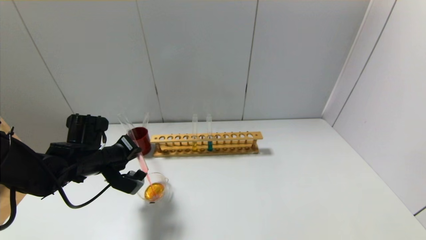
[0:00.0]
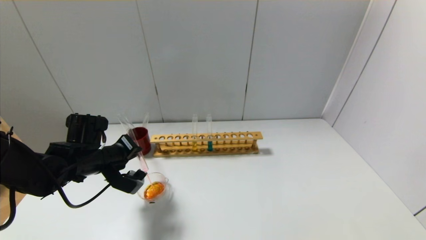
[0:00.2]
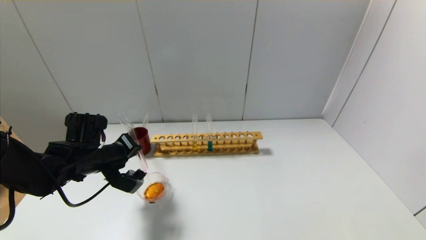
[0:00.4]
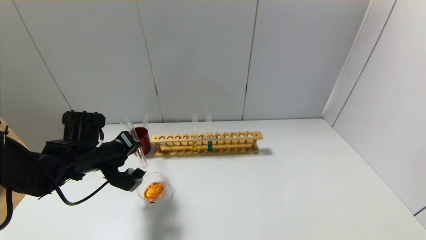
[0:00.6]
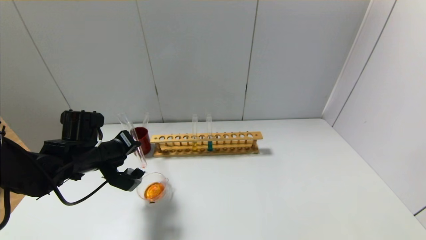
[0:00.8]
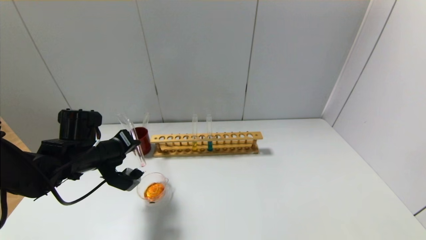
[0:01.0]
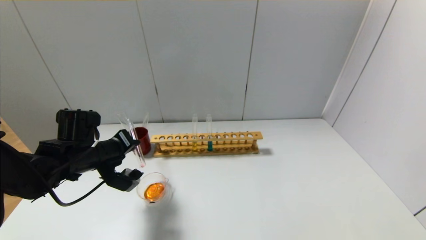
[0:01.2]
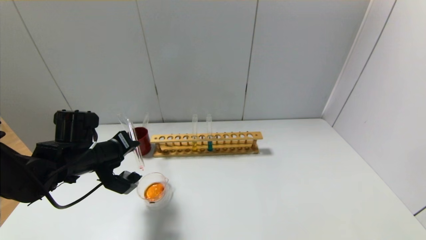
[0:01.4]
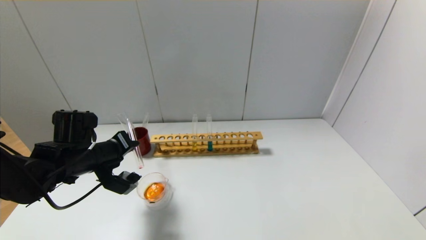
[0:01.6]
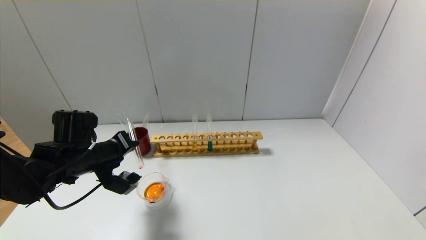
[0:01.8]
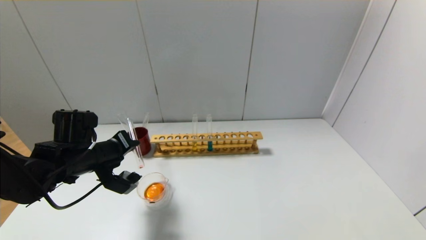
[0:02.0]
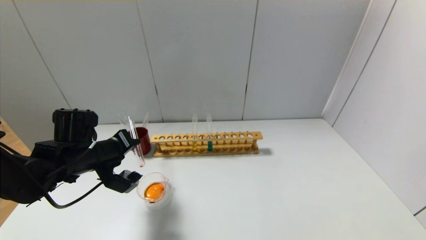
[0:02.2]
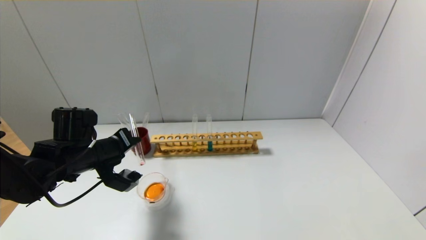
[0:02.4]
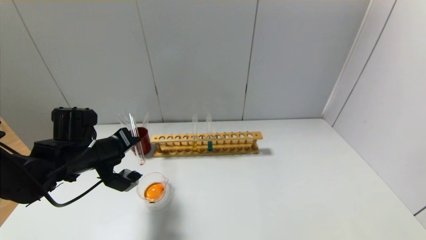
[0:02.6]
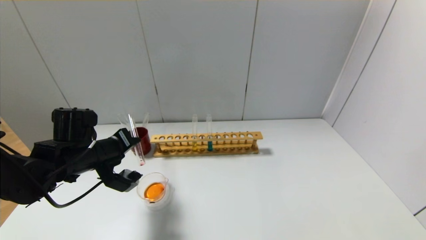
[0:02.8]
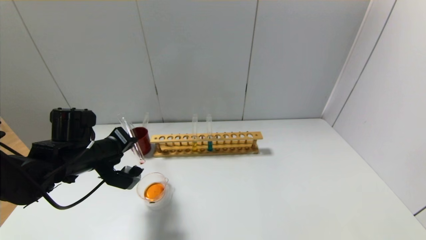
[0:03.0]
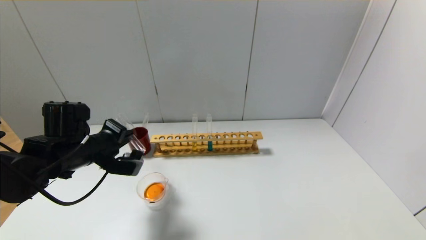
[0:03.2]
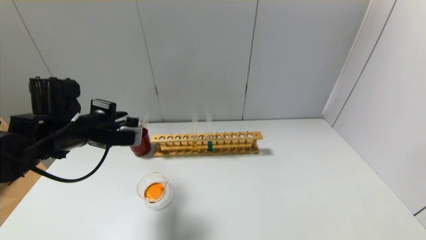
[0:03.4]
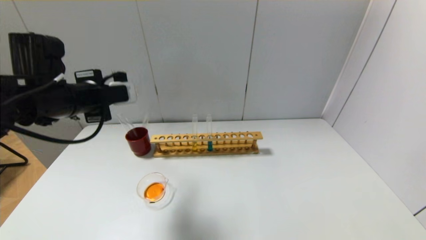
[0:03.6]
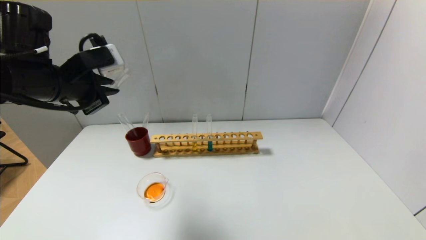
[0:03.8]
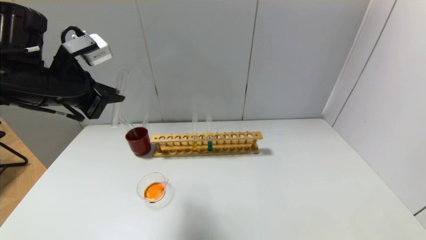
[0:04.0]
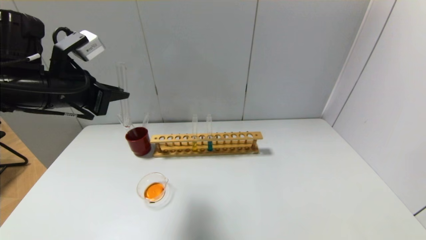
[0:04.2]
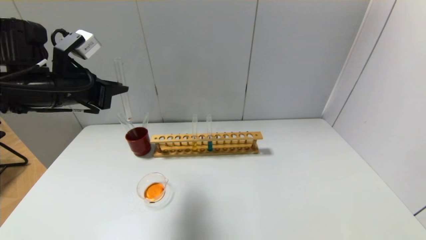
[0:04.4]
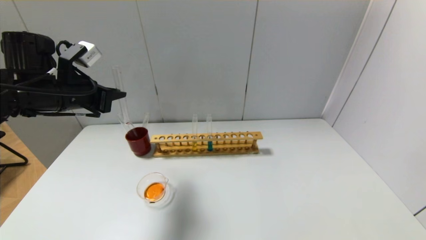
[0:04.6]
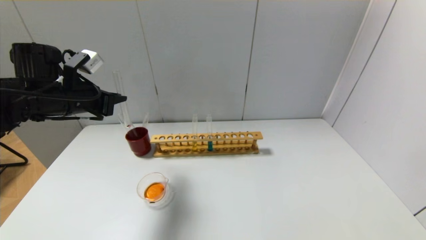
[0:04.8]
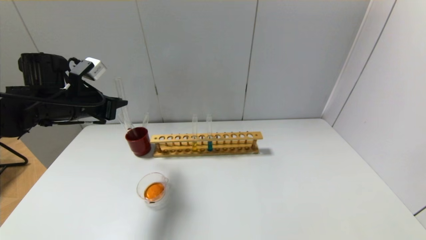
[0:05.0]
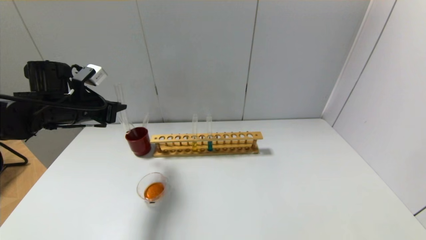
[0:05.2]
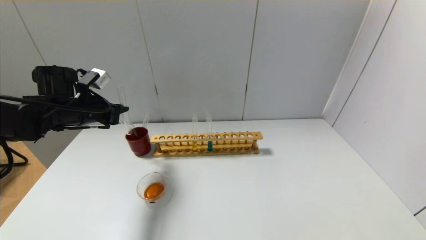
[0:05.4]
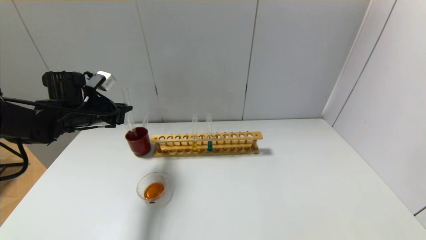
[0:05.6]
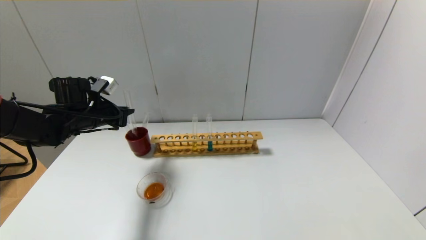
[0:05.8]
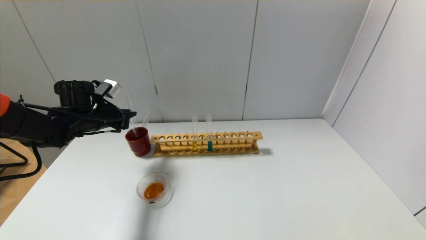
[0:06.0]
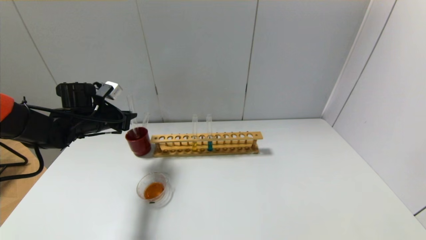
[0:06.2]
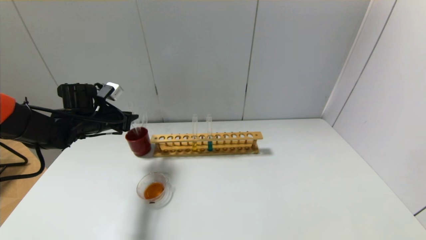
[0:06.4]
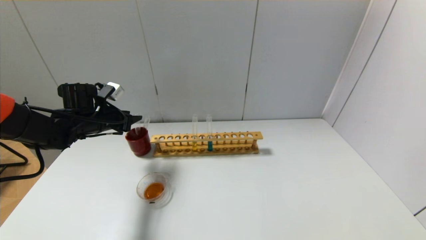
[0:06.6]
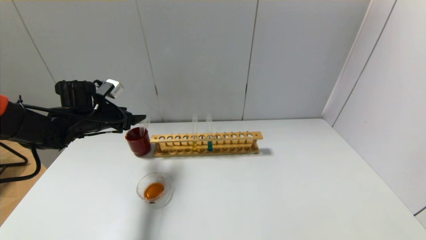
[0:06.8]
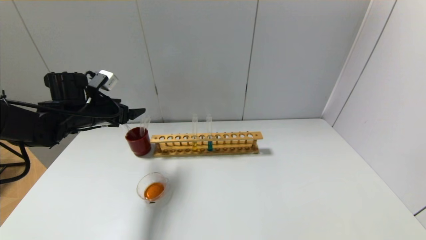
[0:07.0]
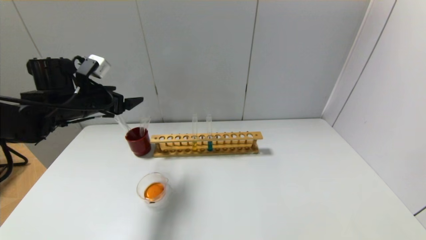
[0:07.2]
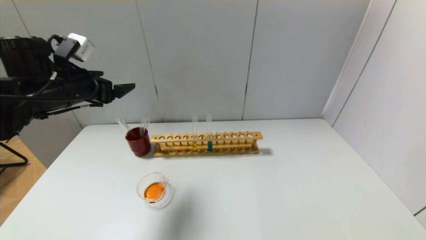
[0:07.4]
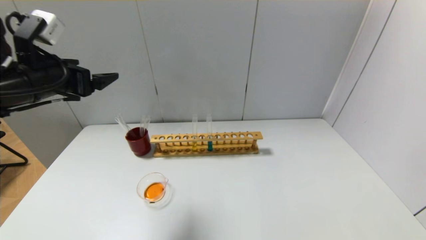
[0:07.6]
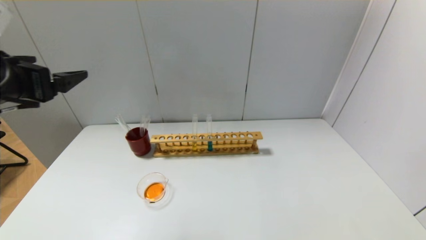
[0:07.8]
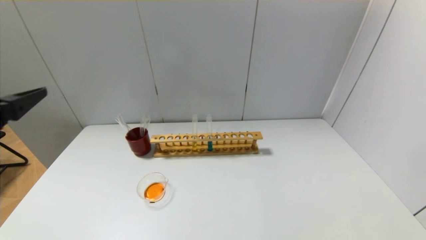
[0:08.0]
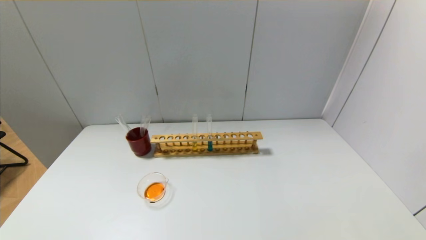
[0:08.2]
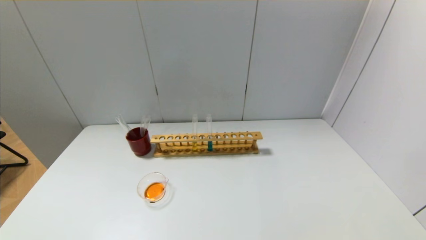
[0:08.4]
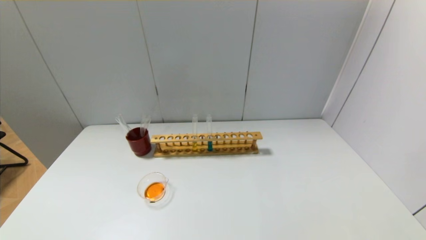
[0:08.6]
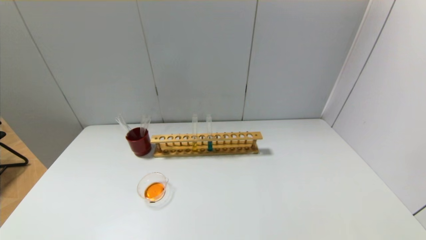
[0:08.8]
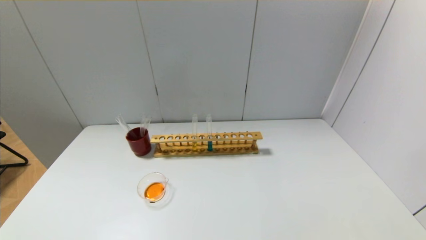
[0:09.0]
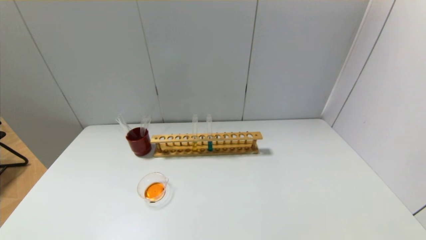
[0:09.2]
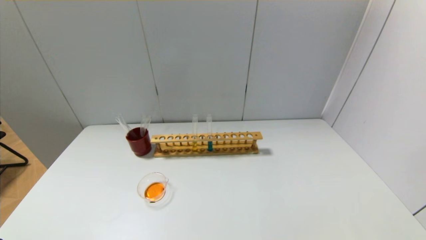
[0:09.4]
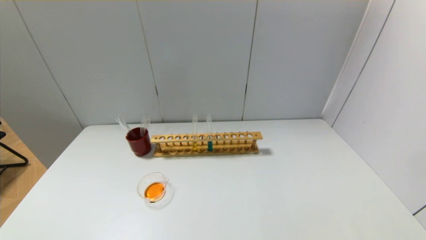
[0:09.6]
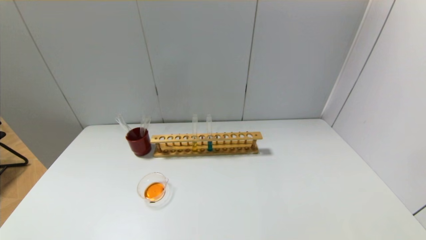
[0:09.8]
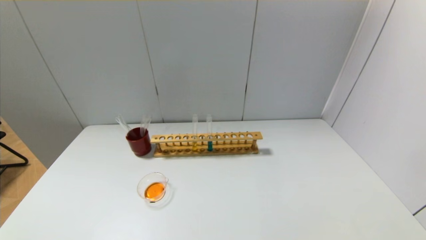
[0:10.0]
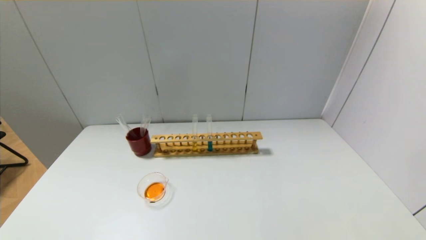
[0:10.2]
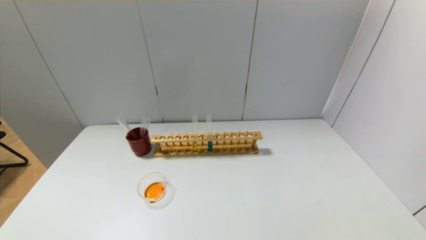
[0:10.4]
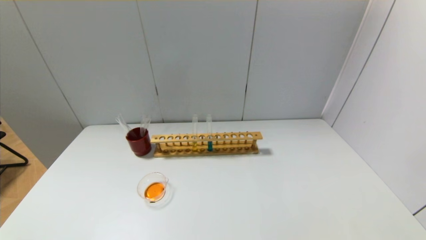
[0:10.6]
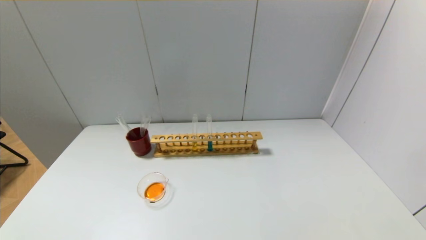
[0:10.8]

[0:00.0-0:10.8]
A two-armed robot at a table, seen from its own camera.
Step, 0:00.0 to 0:02.8: Pour the red reagent into the graduated cylinder with the left gripper.
Step, 0:03.0 to 0:06.6: Place the test tube into the brown cup with the left gripper.
0:00.0 to 0:03.0: The grippers move only a little.
0:03.0 to 0:04.6: The left gripper travels upward by about 10 cm.
0:04.6 to 0:06.2: The left gripper heads downward and forward, covering about 15 cm.
0:06.2 to 0:07.8: The left gripper shifts about 25 cm backward and upward, and opens up.
0:07.8 to 0:09.2: The left gripper shifts about 30 cm backward and downward.
